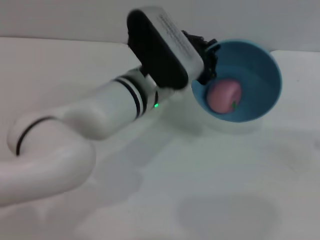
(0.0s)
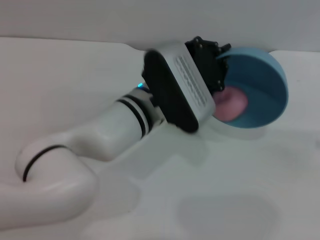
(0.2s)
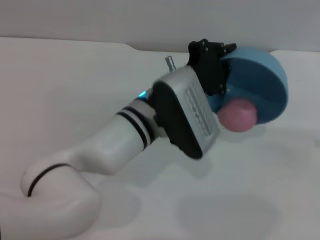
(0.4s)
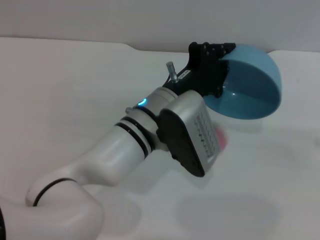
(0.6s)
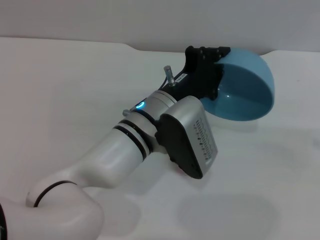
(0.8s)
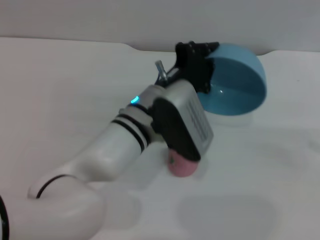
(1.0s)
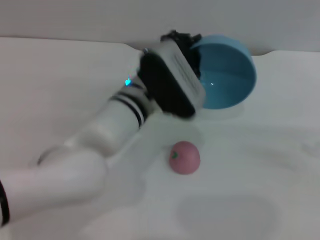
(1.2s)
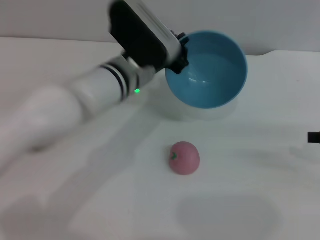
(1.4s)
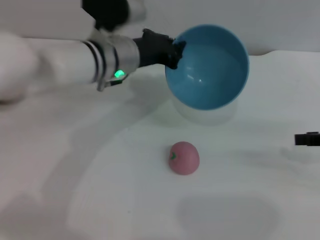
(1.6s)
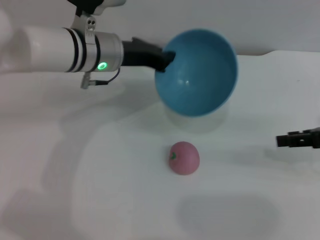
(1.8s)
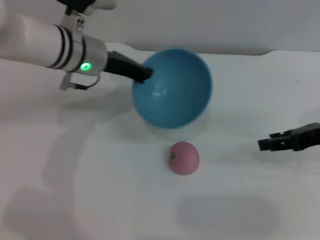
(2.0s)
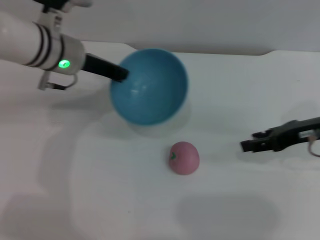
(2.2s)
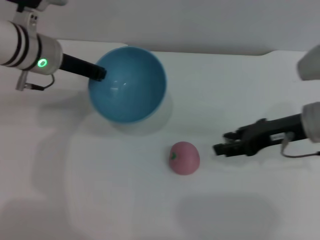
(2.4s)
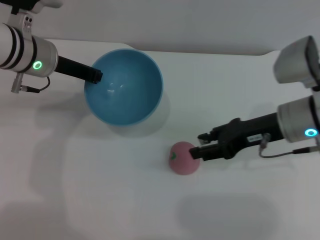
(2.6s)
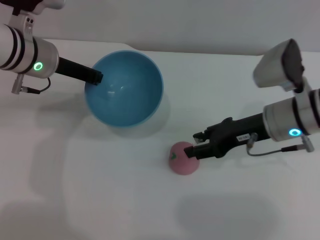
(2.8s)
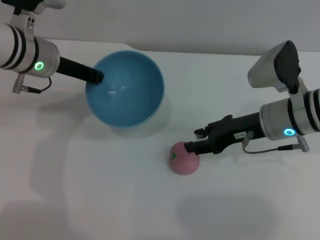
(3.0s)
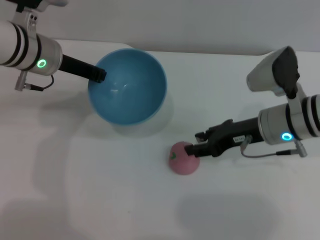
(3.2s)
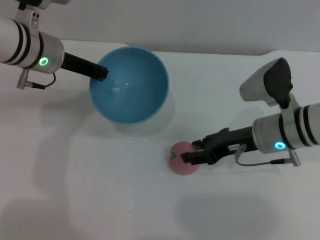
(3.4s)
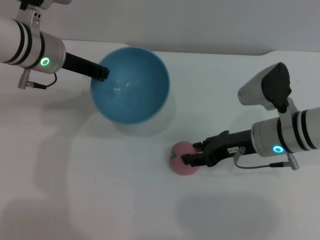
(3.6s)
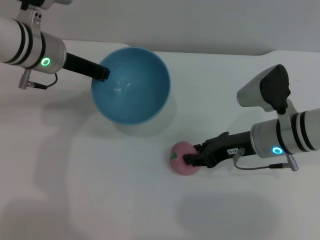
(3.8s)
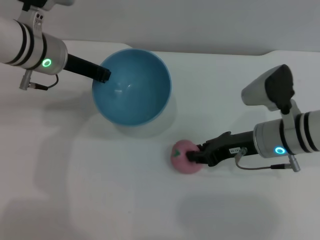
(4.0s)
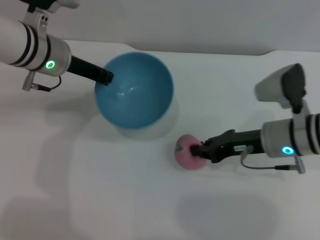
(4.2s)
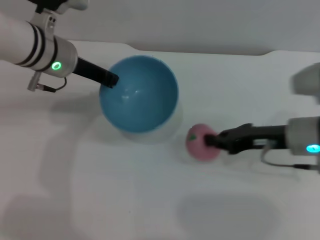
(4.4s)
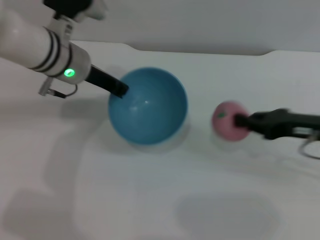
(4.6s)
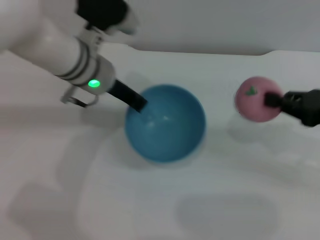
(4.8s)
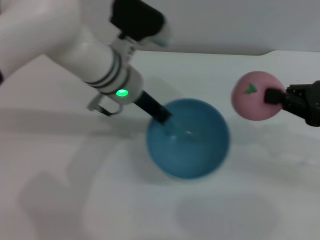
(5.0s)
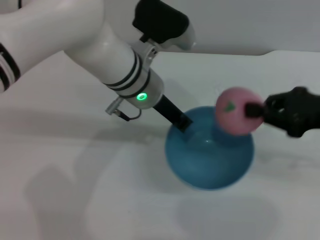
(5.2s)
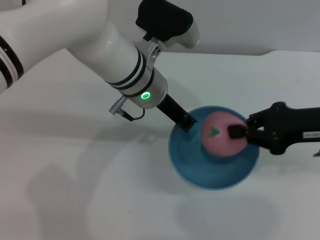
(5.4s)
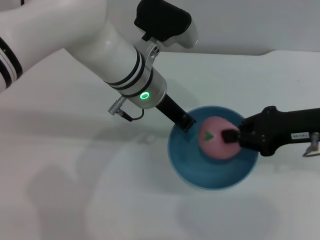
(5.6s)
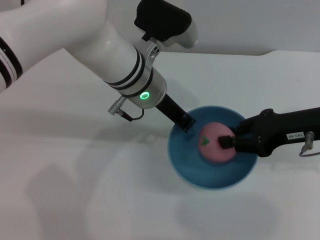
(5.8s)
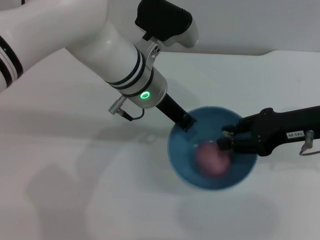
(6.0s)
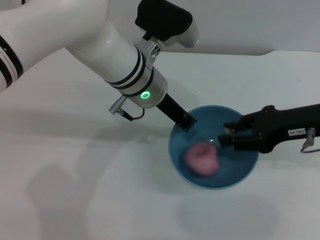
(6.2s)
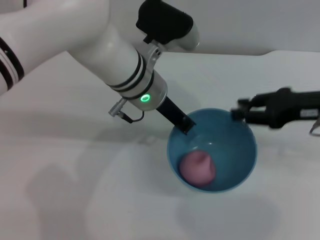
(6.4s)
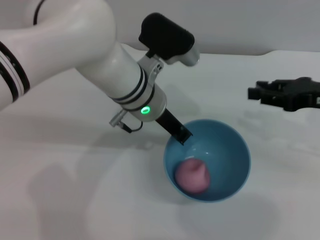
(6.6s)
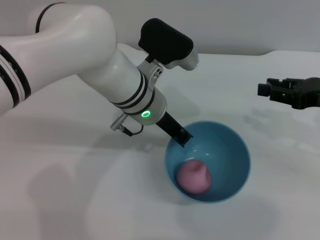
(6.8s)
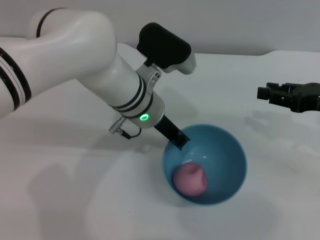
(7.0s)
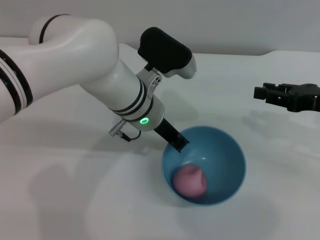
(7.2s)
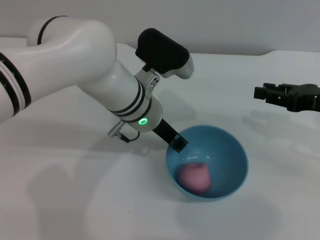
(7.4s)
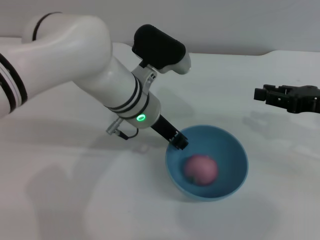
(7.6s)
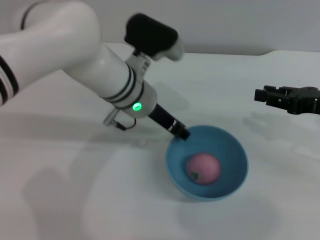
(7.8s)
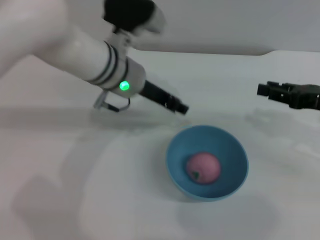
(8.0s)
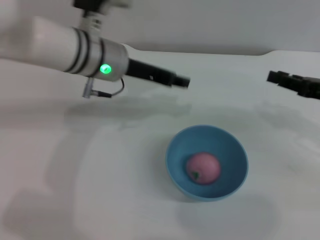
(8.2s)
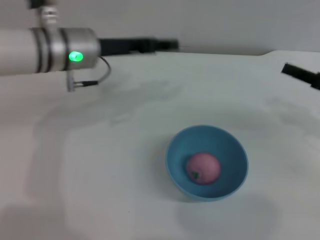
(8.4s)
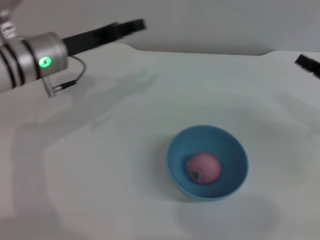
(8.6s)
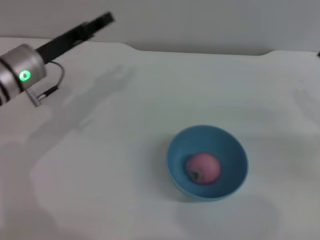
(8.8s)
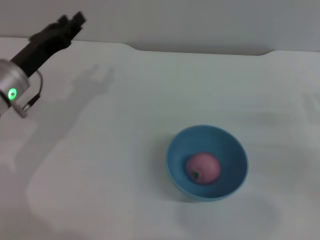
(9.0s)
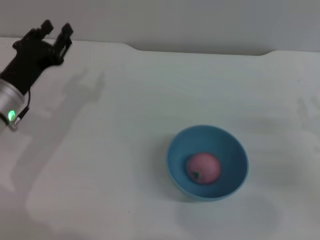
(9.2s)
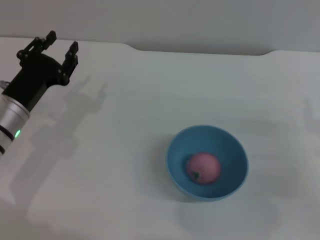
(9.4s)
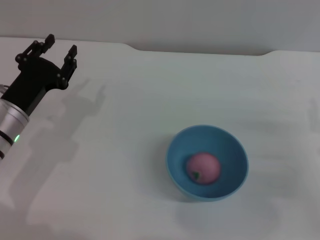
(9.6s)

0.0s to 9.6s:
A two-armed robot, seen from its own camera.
Task of the whole recording: put the peach into the blue bowl and pour it out repeatedly.
Step, 1.0s to 4.4s: Pick up the peach with the right gripper.
Step, 4.8s to 6.2s: Place the peach into the bowl.
Step, 6.4s to 7.8s: Place the bowl on the table.
0.0s to 1.6s: The left gripper travels to the left and forward by about 10 cm, while the right gripper travels to the left by approximately 5 cm.
1.6s to 3.2s: The left gripper travels to the left by approximately 10 cm. The right gripper heads to the left, covering approximately 15 cm.
3.2s to 4.8s: The left gripper travels to the right by roughly 10 cm; the right gripper is displaced to the right and backward by roughly 15 cm, and closes up.
4.8s to 6.4s: The right gripper changes place by some 5 cm, and opens up, while the left gripper goes approximately 5 cm to the right.
6.4s to 8.0s: The right gripper changes place by roughly 5 cm, while the left gripper opens.
8.0s to 9.6s: The right gripper moves downward and backward, about 10 cm; the left gripper goes roughly 20 cm to the left, downward and backward.
